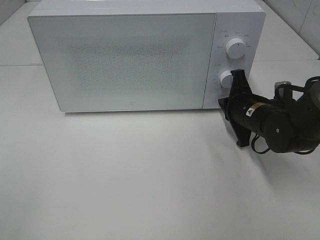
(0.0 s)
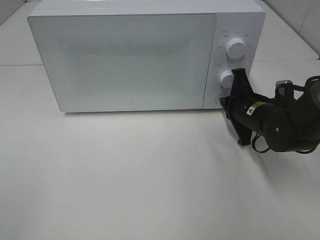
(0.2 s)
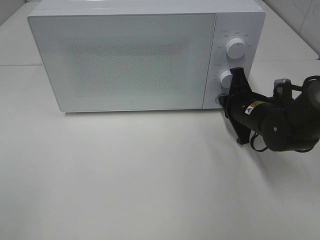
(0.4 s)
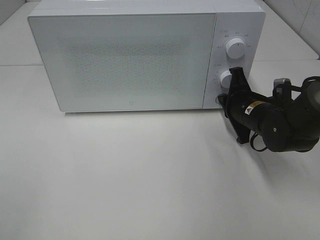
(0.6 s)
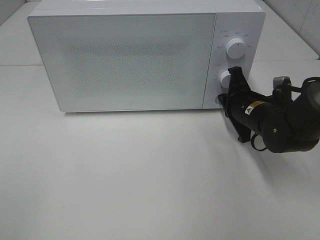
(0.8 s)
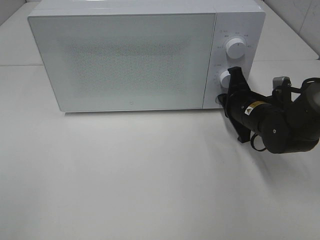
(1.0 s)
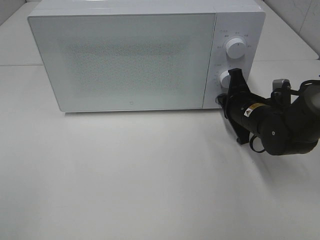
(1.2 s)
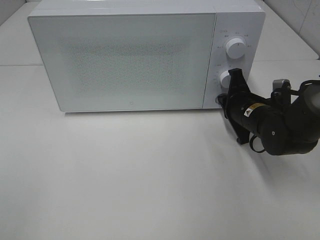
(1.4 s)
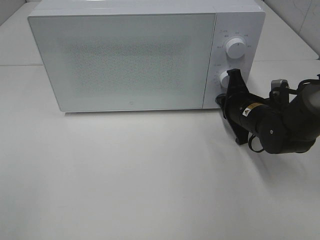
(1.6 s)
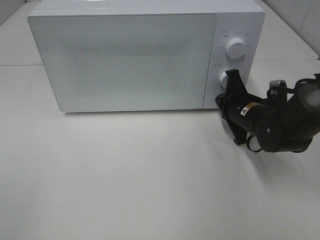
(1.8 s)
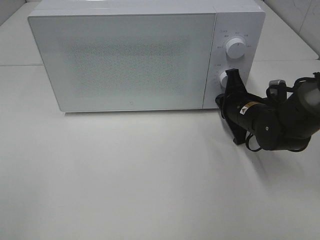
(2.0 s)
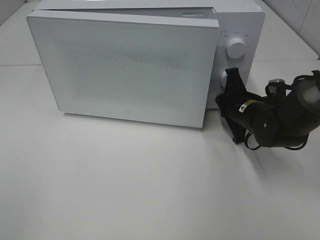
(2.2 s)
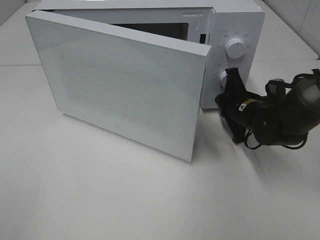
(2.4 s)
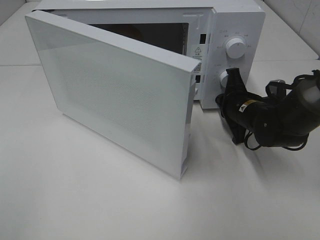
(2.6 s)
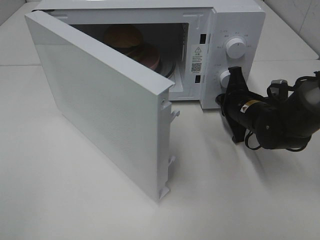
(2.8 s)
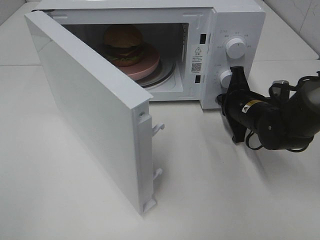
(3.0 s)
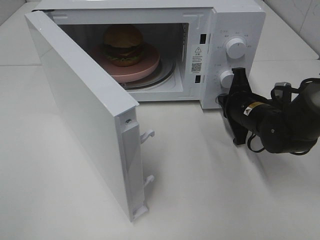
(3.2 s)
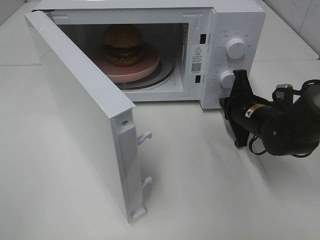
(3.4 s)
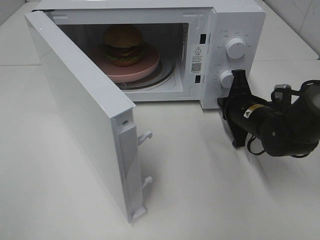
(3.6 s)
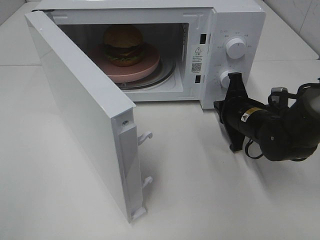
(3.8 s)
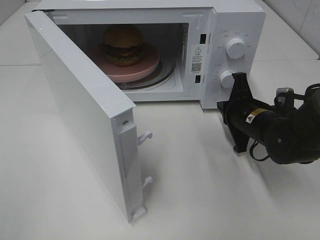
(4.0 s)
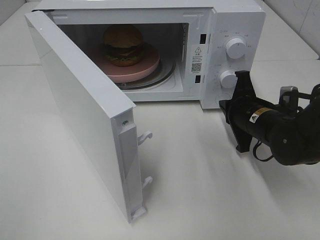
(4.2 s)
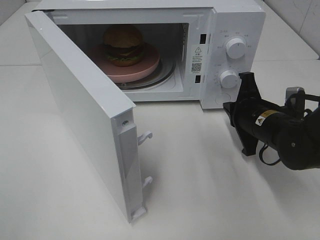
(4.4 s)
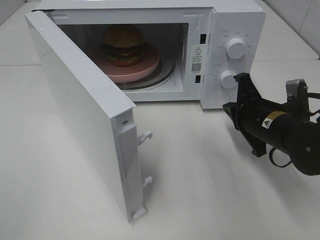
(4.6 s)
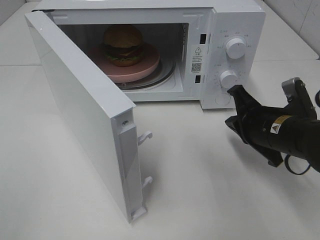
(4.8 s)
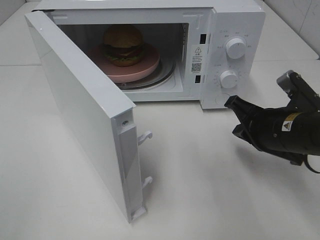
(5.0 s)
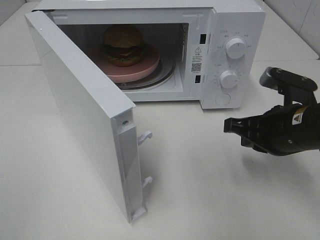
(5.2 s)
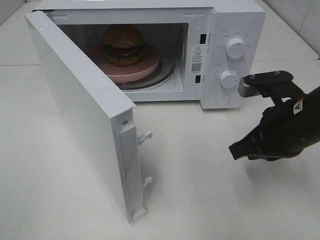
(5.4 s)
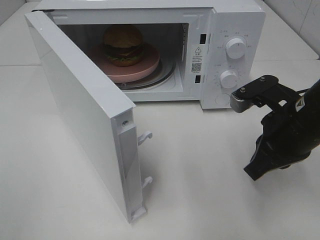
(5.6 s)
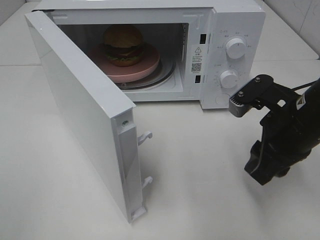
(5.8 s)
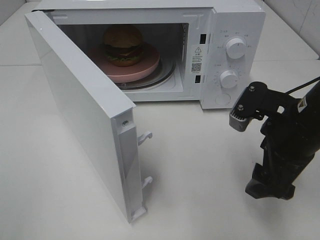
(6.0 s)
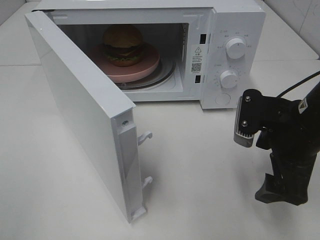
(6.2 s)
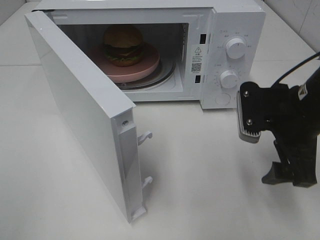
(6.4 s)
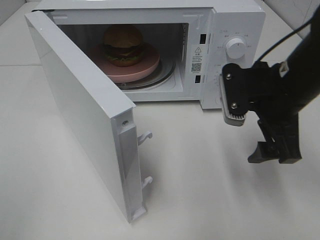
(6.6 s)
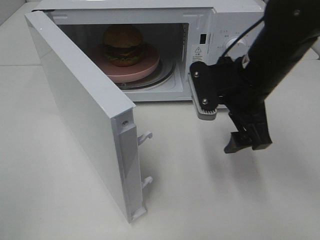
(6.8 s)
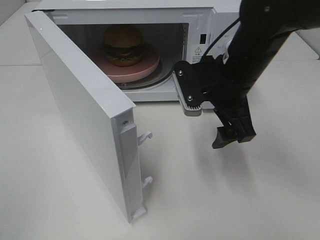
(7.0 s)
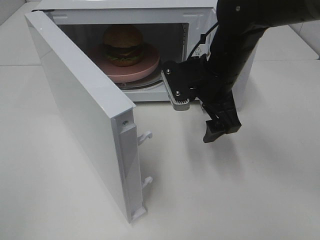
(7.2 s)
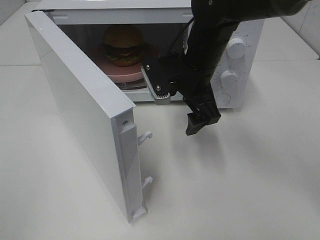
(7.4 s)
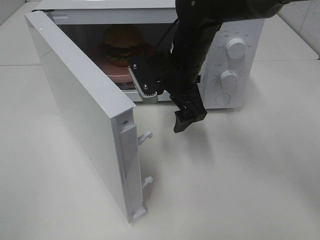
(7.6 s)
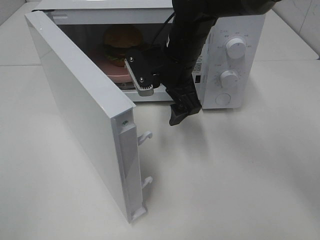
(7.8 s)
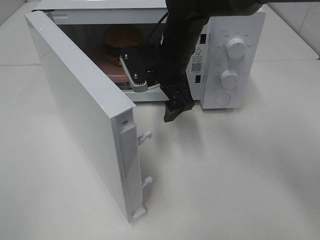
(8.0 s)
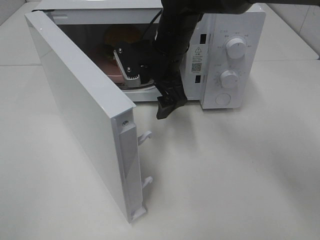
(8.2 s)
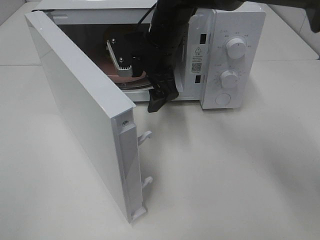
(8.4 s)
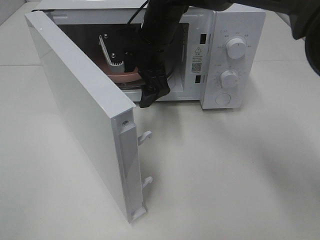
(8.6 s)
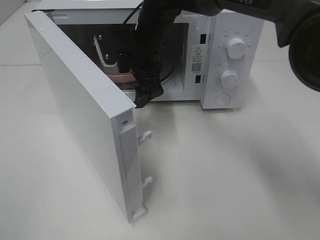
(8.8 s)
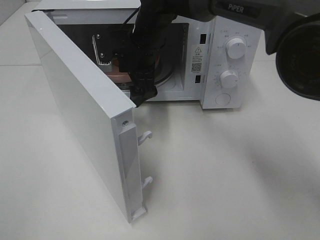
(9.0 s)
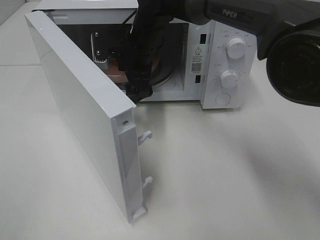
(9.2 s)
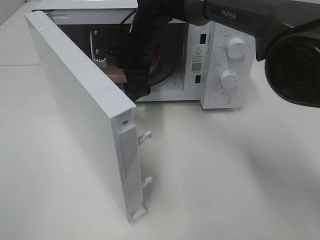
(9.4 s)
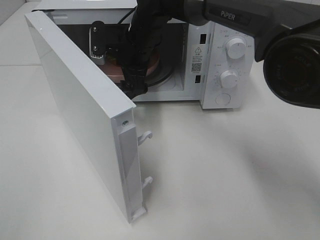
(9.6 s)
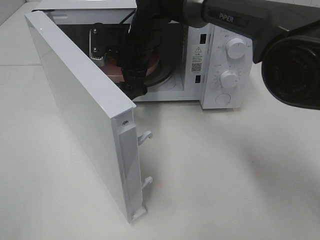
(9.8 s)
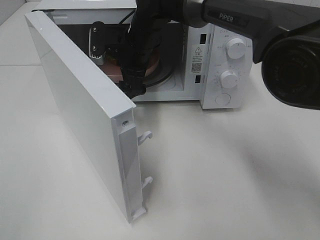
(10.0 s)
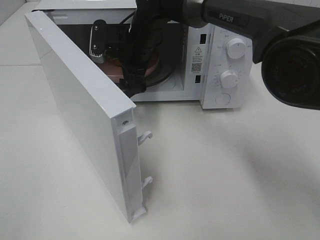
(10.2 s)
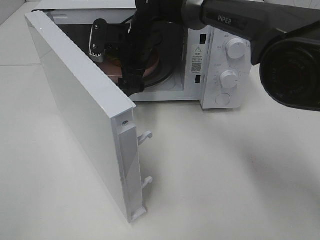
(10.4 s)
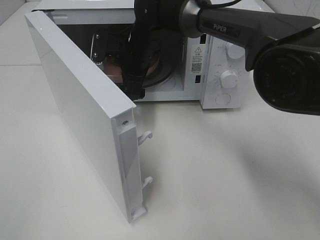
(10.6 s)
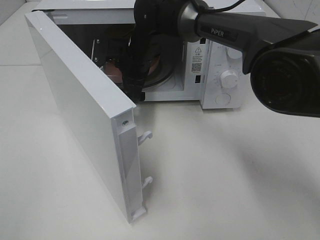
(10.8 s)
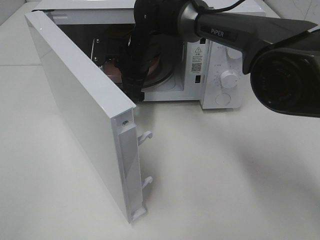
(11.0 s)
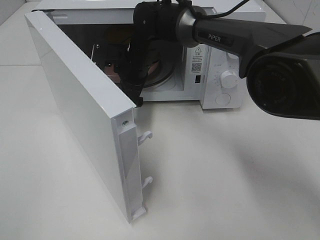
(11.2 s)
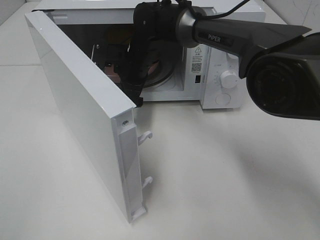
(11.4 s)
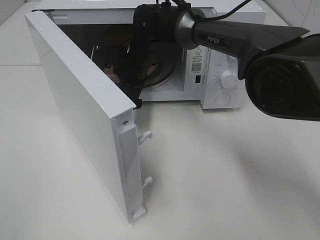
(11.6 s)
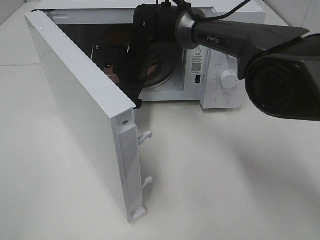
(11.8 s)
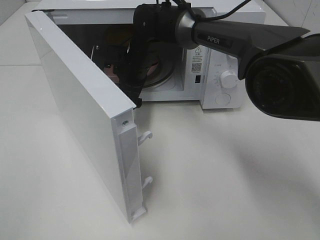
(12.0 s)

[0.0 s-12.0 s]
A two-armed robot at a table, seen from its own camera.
Task of the whole recording: Heat the burger.
Step, 0.0 to 3.6 s: Right hand: press the switch.
0.0 to 1.6 s: The grippers move only a little.
3.0 to 4.4 s: The right gripper moves about 5 cm.
4.4 to 6.0 s: The right gripper moves upward and backward, approximately 10 cm, and opens its fingers.
6.0 to 7.6 s: The right gripper is displaced to the left and forward by about 20 cm.
7.6 to 9.0 s: The right gripper shifts some 10 cm to the left and forward.
9.0 to 12.0 s: The grippers move only a little.

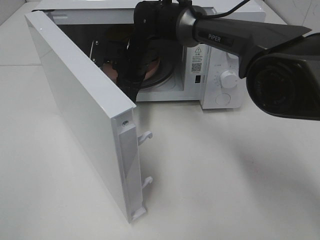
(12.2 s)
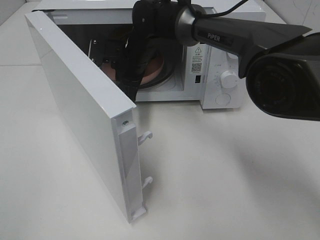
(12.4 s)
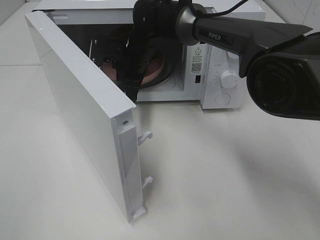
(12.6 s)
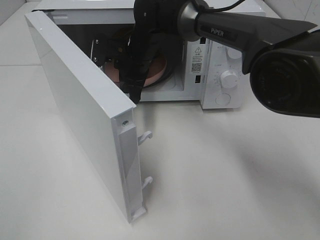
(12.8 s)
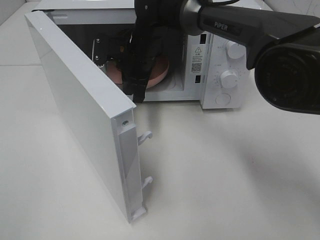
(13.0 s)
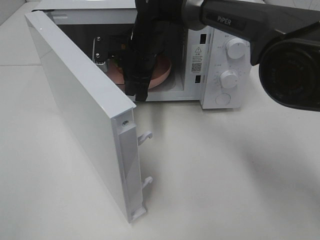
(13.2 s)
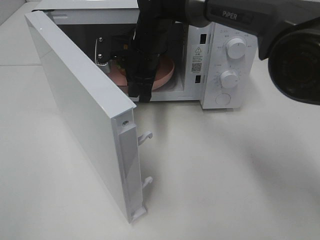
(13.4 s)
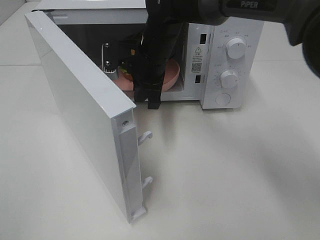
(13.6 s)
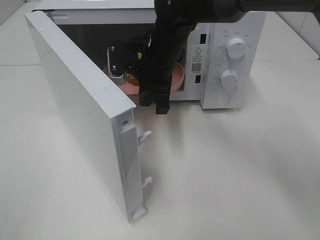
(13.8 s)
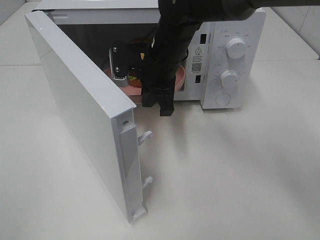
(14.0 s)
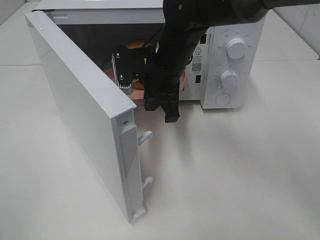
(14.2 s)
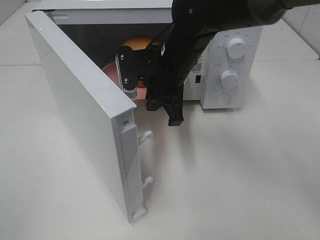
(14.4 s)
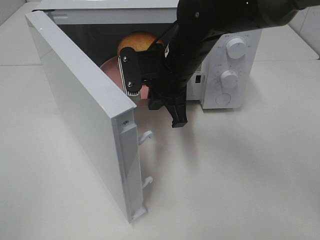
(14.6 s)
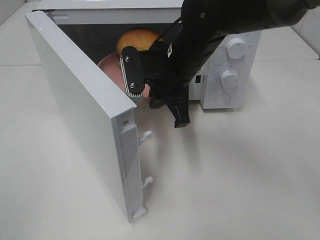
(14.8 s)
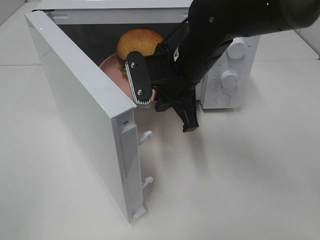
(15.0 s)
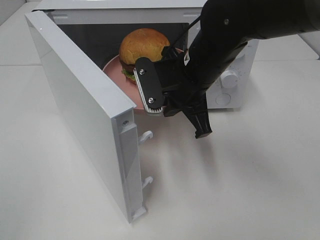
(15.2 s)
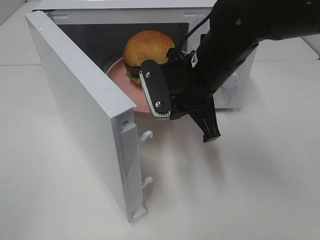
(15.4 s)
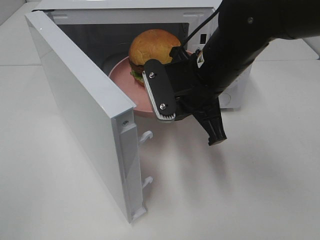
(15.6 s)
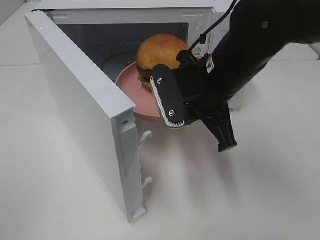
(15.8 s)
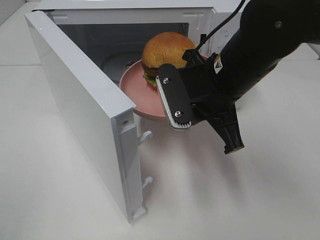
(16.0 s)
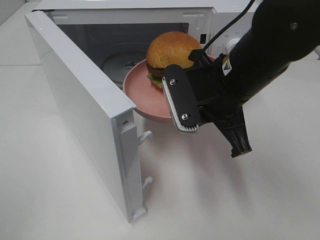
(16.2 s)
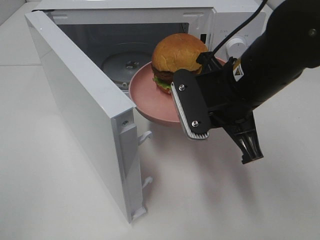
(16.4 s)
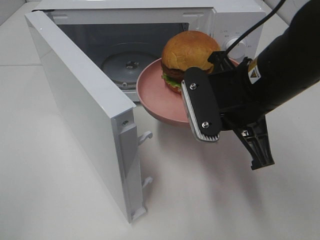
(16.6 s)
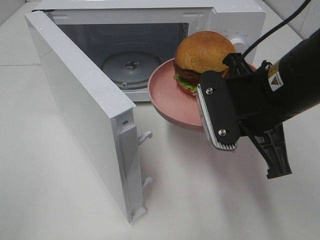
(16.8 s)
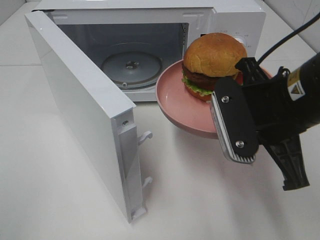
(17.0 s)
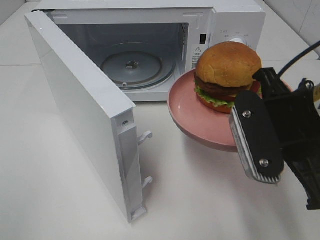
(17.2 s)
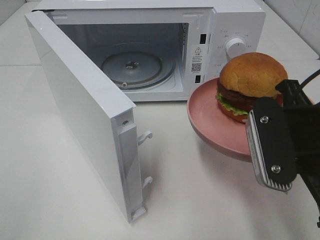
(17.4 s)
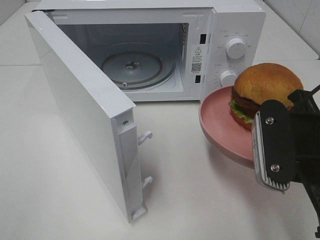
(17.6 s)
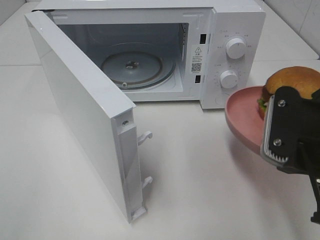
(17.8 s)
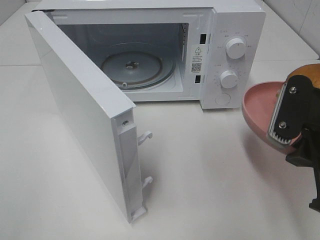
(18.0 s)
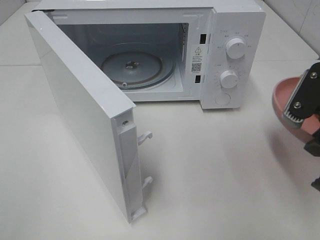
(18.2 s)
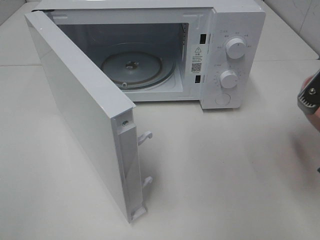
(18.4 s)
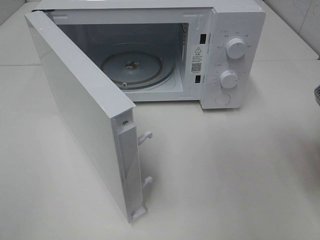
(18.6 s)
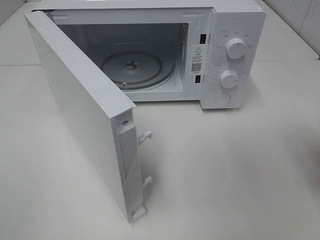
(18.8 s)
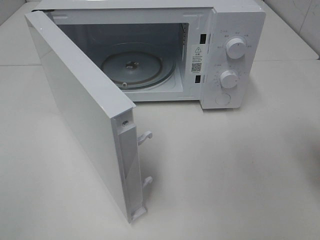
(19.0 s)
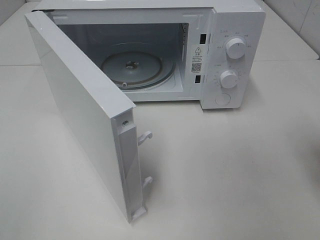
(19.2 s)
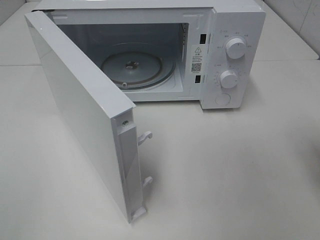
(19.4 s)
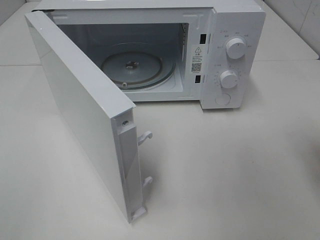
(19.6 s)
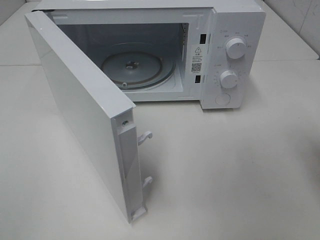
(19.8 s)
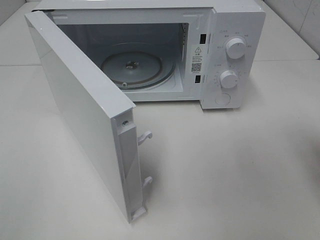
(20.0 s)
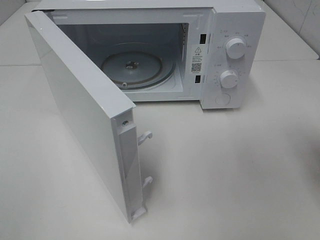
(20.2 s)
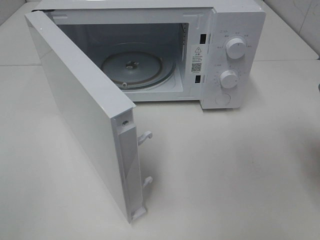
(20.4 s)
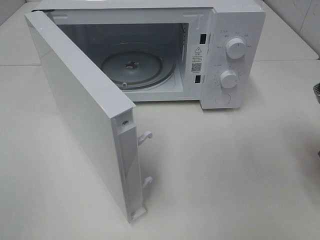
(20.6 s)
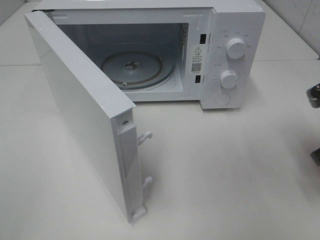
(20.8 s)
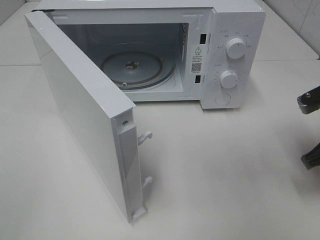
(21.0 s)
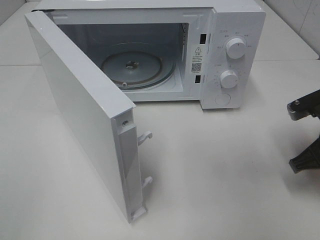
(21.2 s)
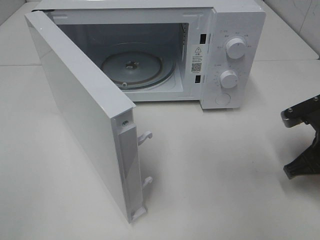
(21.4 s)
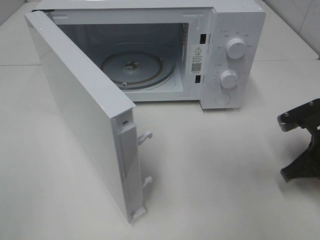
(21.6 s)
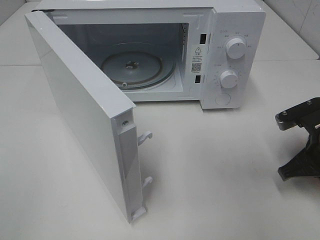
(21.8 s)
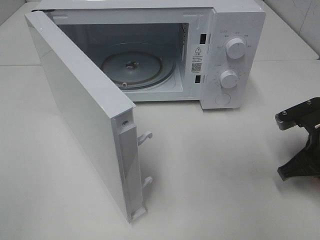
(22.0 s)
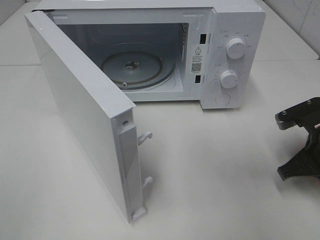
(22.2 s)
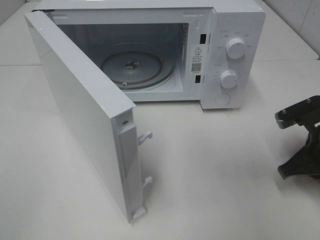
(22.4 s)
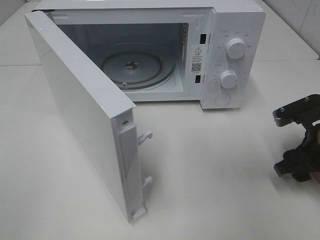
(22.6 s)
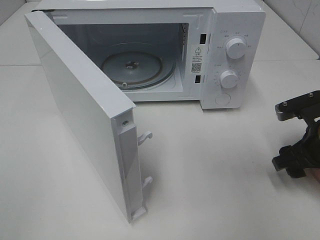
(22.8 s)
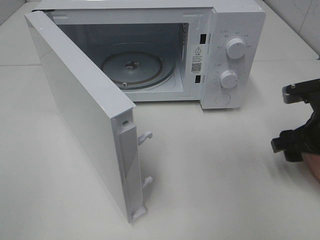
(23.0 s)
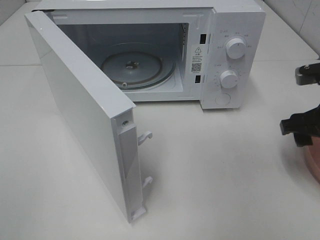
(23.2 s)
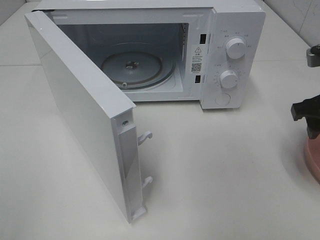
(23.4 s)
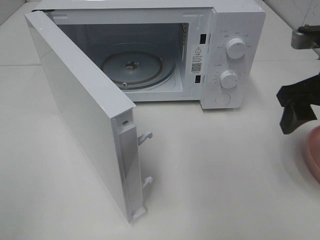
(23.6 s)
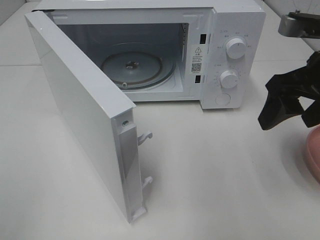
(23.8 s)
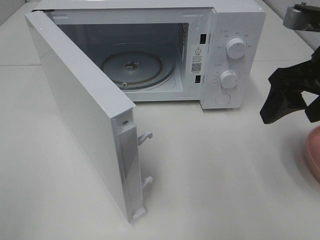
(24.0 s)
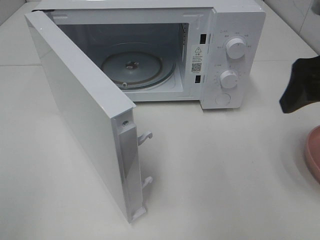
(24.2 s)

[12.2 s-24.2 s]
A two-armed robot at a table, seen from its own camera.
Task of the whole recording: Heat the burger.
Step, 12.4 to 22.4 s: Right hand: place the plate on the table.
12.2 to 13.8 s: The right gripper travels backward by approximately 5 cm.
13.8 to 15.2 s: The right gripper is displaced backward and to the right by about 10 cm.
15.2 to 16.6 s: The right gripper is displaced backward and to the right by approximately 10 cm.
16.6 to 18.2 s: The right gripper moves to the right, roughly 10 cm.
18.2 to 19.8 s: The right gripper changes place by some 5 cm.
19.8 to 21.2 s: The right gripper moves downward, about 10 cm.
21.2 to 22.6 s: The right gripper opens.
22.6 to 24.2 s: The right gripper heads upward, covering roughly 20 cm.
